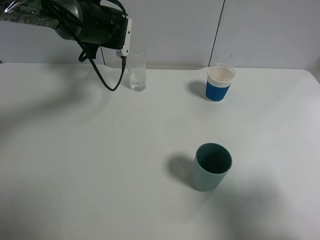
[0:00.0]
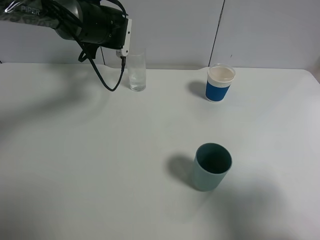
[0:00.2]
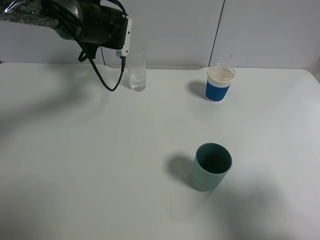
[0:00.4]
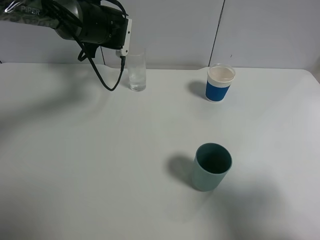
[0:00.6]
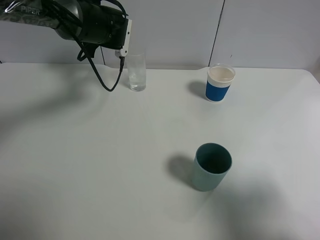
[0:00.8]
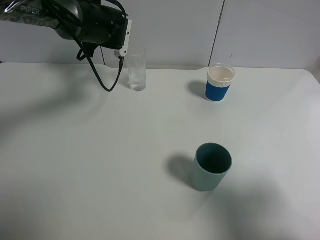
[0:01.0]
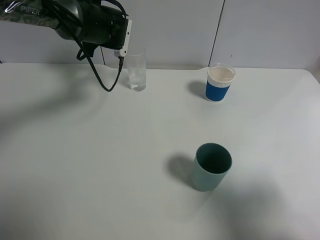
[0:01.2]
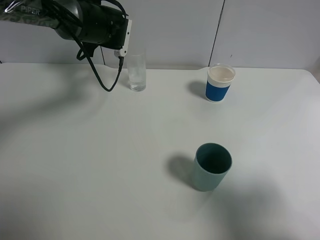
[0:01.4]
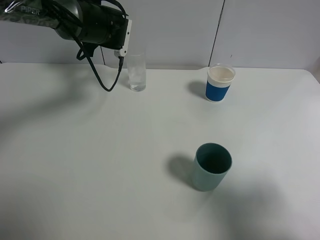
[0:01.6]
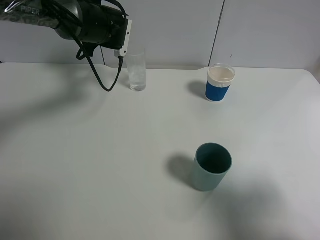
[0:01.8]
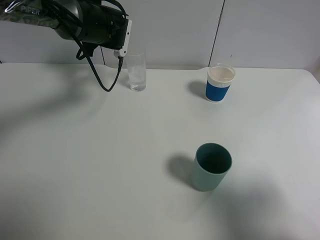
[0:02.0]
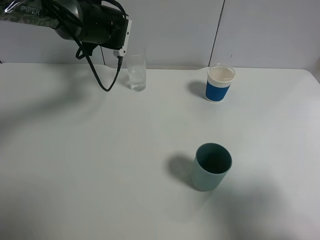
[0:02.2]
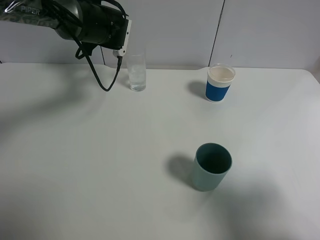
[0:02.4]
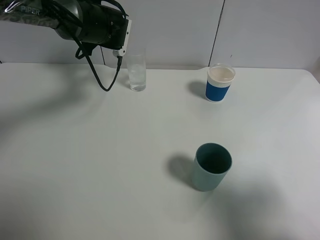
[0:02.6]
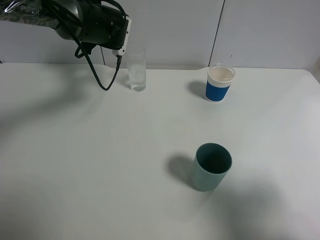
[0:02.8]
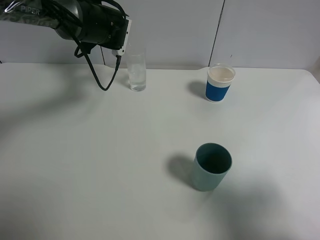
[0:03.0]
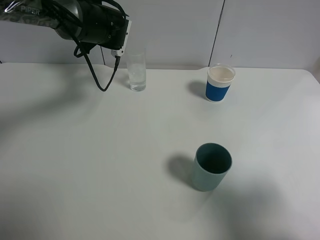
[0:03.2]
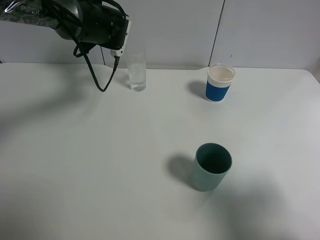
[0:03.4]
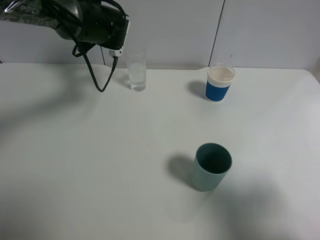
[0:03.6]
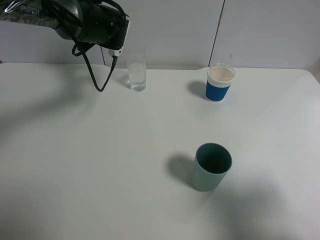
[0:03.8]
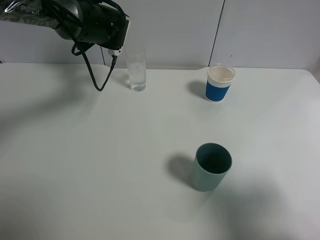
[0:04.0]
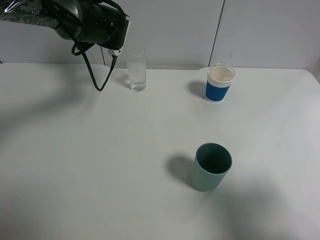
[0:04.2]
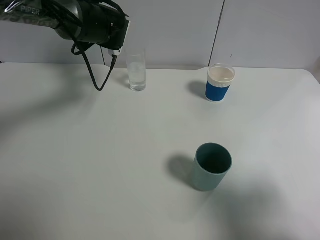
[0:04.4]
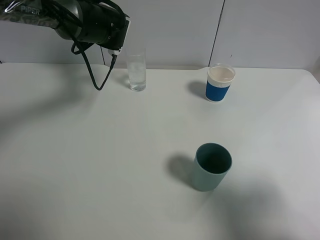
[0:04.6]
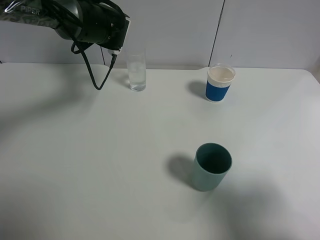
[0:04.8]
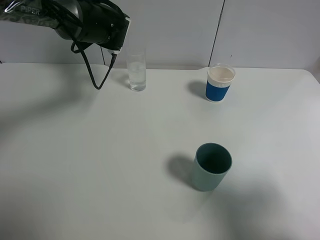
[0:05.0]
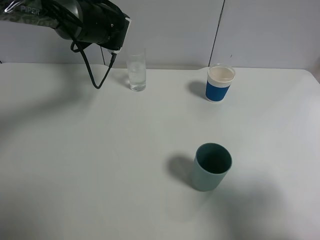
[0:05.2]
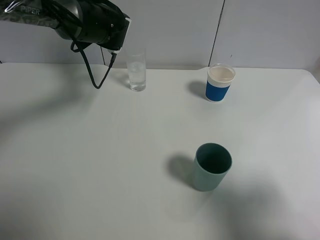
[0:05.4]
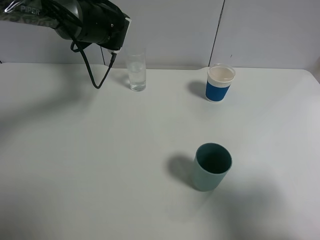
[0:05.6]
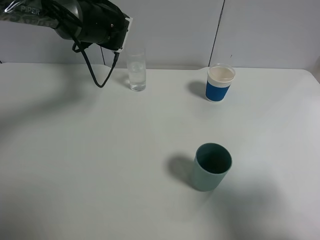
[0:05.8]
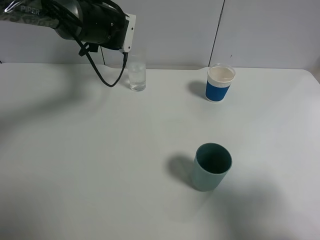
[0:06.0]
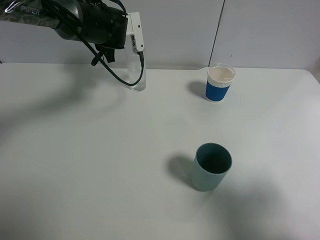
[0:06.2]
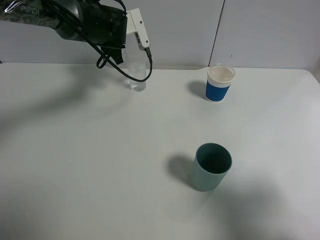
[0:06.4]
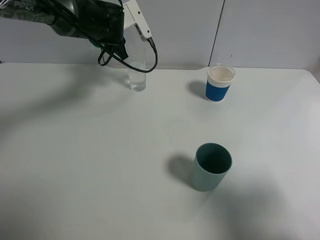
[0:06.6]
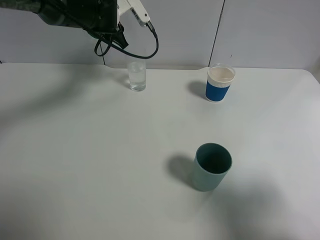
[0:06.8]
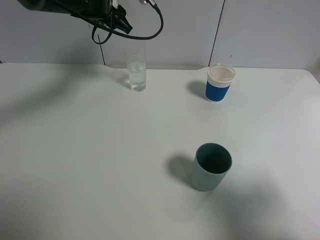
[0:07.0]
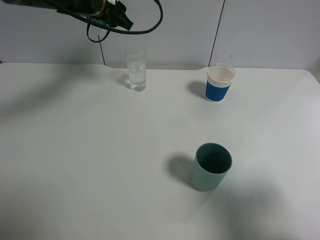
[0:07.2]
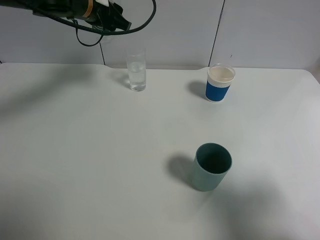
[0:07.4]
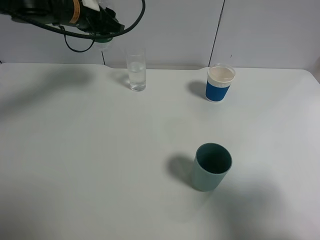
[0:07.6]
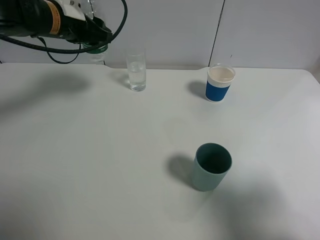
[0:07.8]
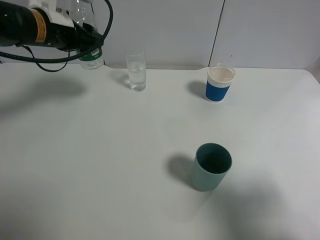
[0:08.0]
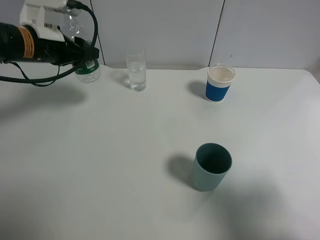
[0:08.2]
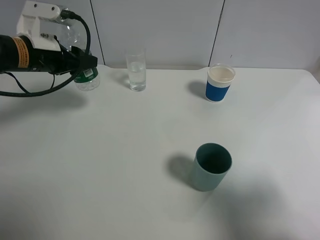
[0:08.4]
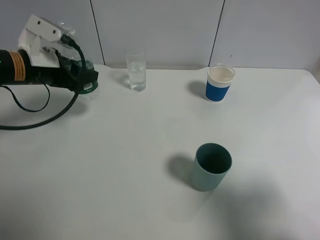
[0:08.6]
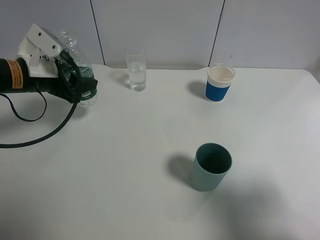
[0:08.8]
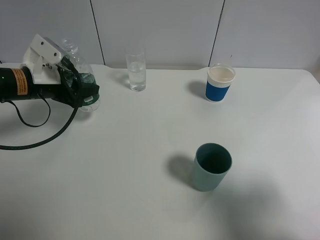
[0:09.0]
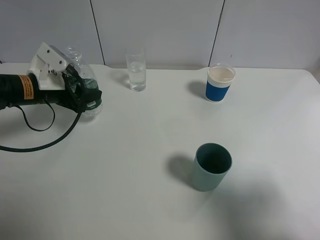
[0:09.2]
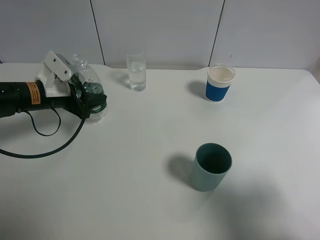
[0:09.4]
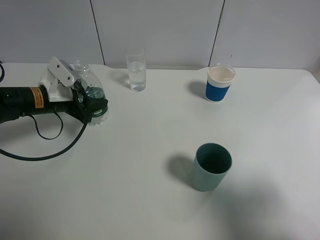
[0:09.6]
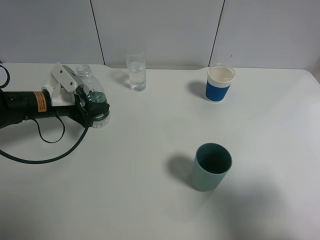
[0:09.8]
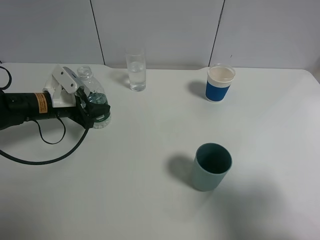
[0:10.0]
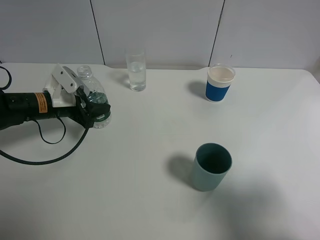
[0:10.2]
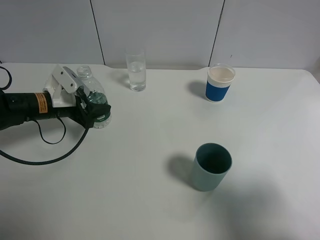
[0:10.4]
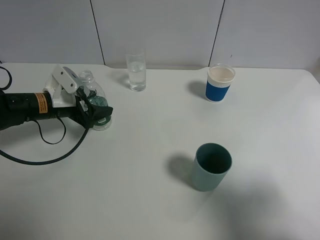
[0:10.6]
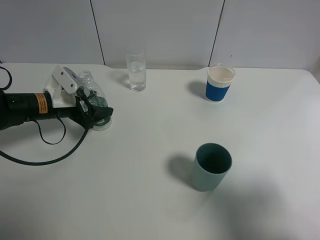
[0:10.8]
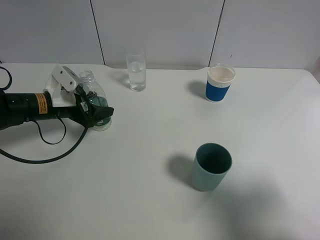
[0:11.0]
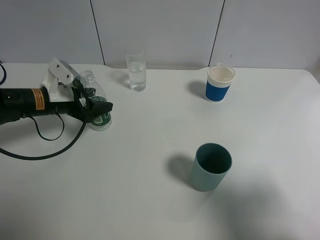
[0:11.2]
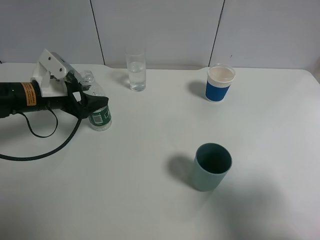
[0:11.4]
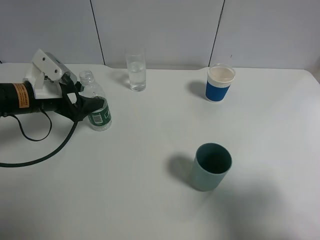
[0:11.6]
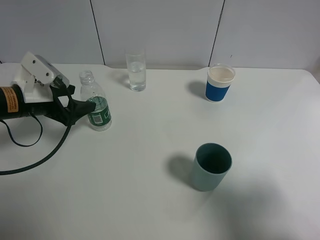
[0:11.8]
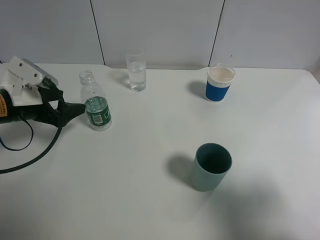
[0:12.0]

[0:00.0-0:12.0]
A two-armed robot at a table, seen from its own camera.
Task of the whole recording: use a gripper to hold the bottle of the drink and pour it into a random cup.
Step, 0:02.6 to 0:11.2: Place the mineral water bottle on the table with the left gripper.
0:00.0 to 0:01.6: The two grippers keep their place.
0:01.6 to 0:03.0: The two grippers keep their place.
0:03.0 to 0:06.0: The grippers make only small movements.
0:06.0 to 0:07.6: The left gripper shifts roughly 5 cm backward.
0:07.6 to 0:09.0: The left gripper goes some 15 cm downward, backward and to the left.
0:09.0 to 0:10.4: The left gripper goes some 5 cm downward.
0:10.4 to 0:12.0: The left gripper shifts about 5 cm backward, and opens.

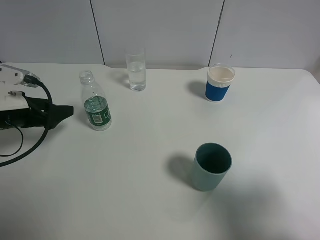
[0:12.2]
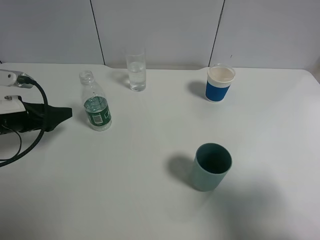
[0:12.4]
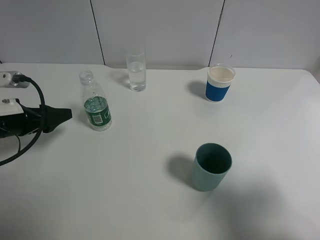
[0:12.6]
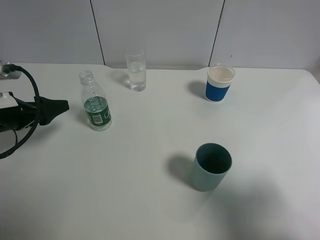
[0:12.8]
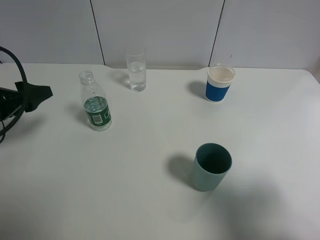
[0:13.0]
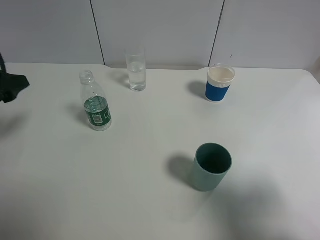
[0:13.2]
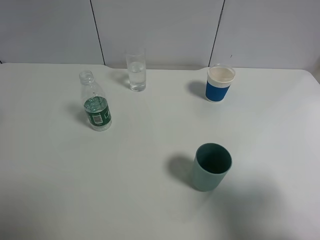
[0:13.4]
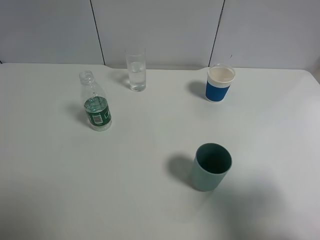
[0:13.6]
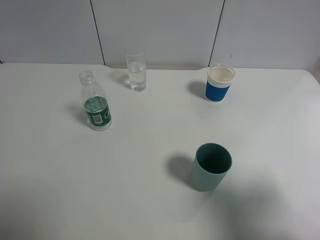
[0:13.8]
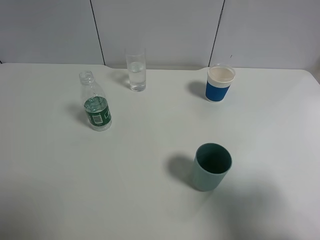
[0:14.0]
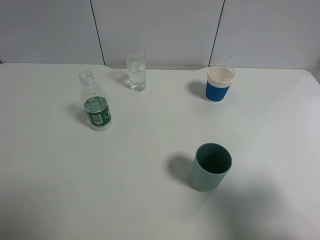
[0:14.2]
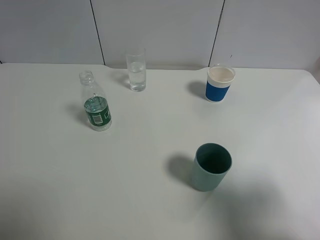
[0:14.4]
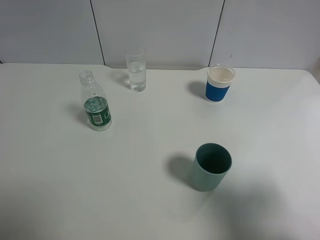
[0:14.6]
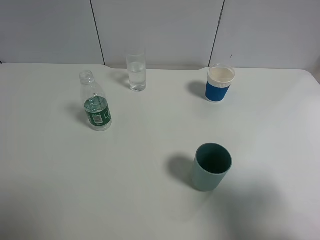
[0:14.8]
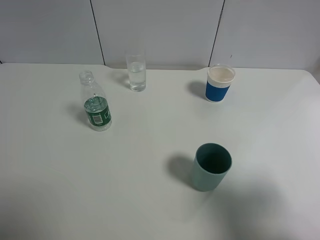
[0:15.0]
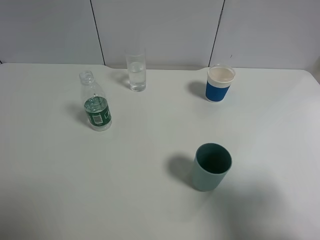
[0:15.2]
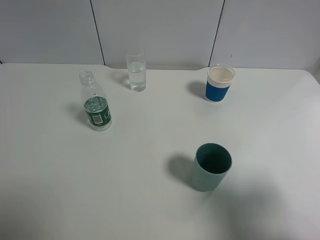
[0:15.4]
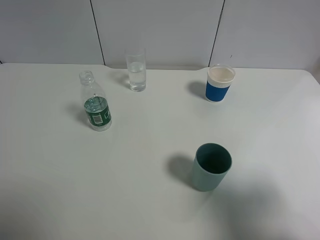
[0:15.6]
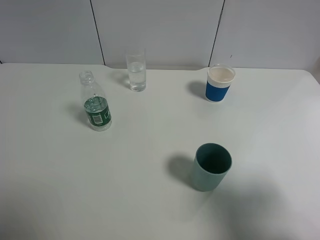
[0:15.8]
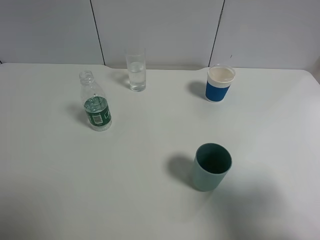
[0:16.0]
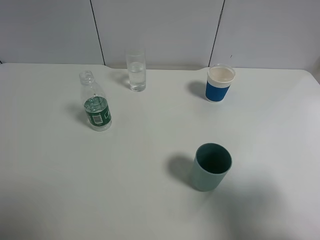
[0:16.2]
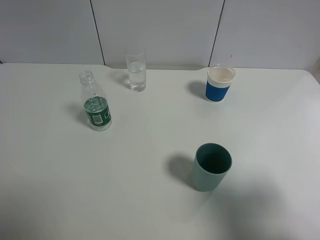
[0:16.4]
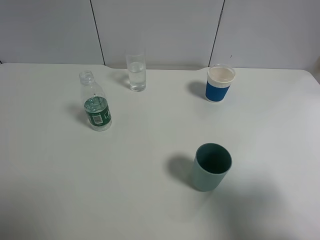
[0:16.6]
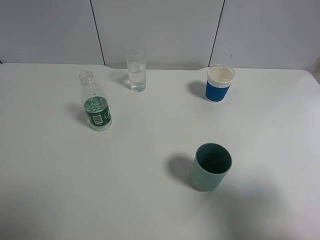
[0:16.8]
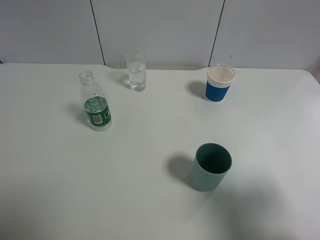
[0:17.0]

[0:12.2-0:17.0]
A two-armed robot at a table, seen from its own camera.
Task of the whole recording: use a gripper to hold the bottle of the drink and pour it into a random cup.
0:12.2 to 0:13.8: The left gripper goes roughly 20 cm upward and backward.
